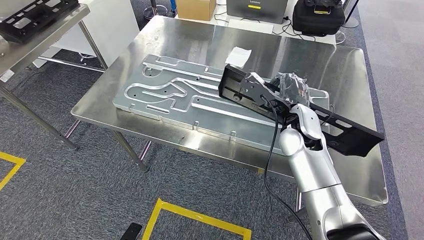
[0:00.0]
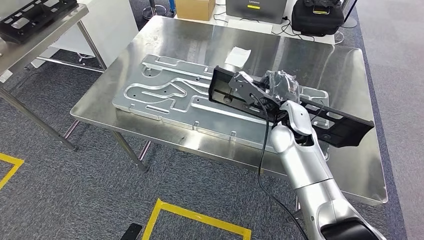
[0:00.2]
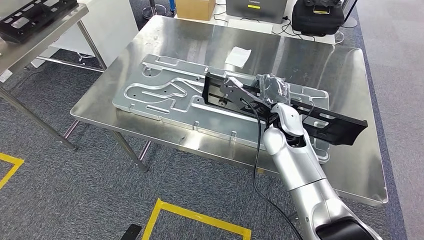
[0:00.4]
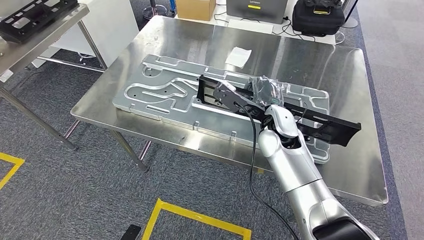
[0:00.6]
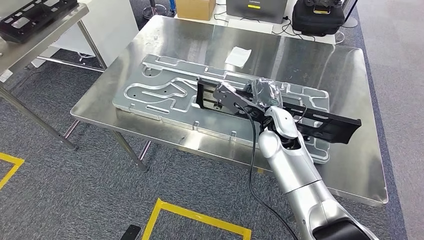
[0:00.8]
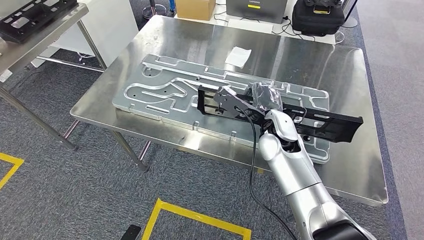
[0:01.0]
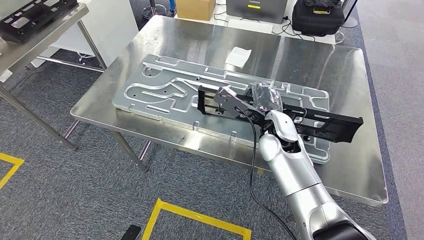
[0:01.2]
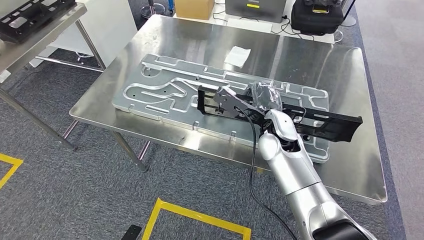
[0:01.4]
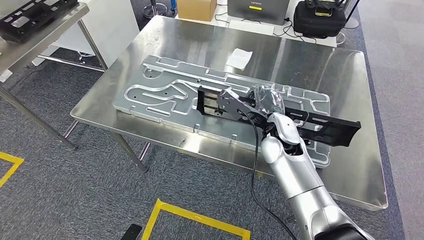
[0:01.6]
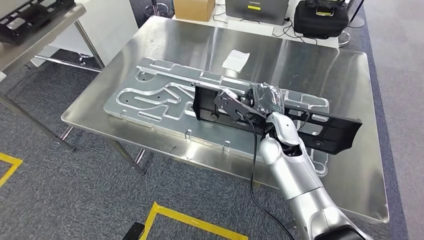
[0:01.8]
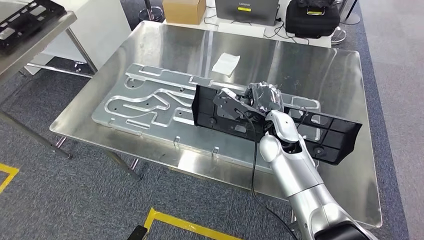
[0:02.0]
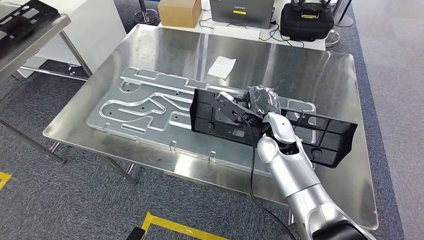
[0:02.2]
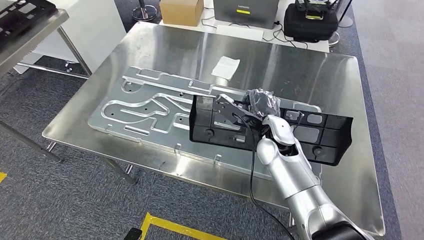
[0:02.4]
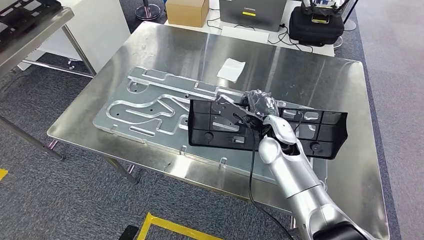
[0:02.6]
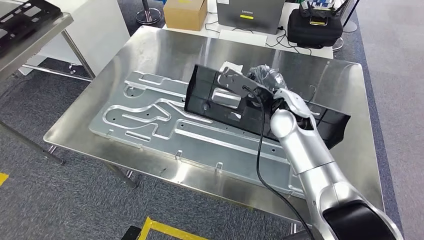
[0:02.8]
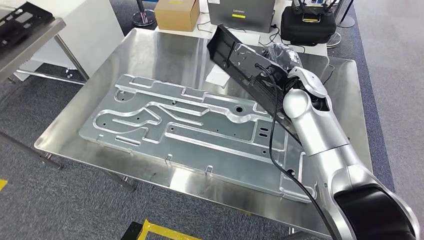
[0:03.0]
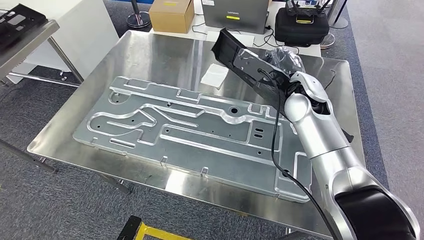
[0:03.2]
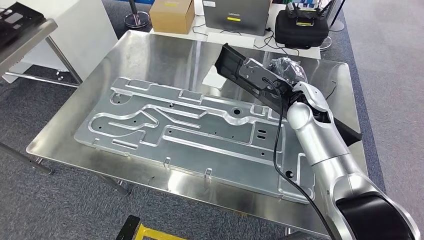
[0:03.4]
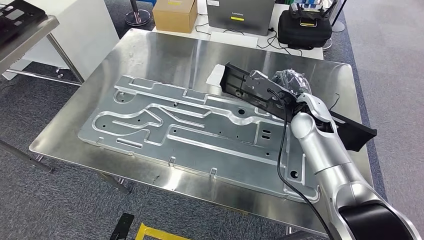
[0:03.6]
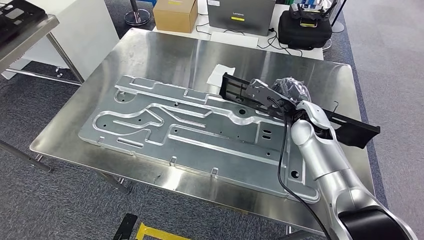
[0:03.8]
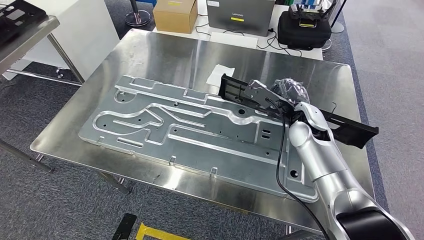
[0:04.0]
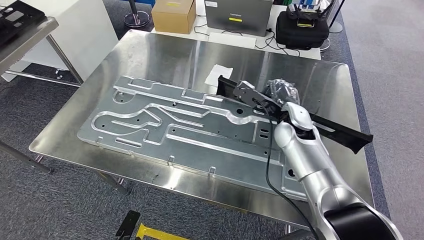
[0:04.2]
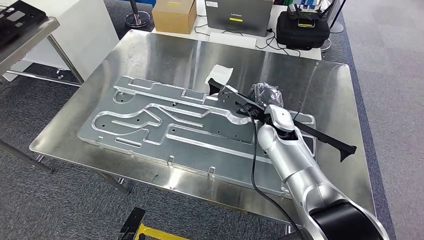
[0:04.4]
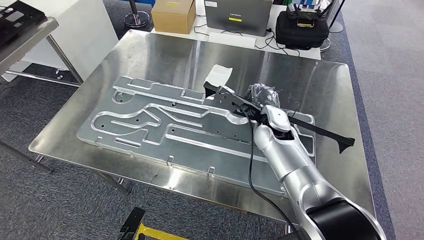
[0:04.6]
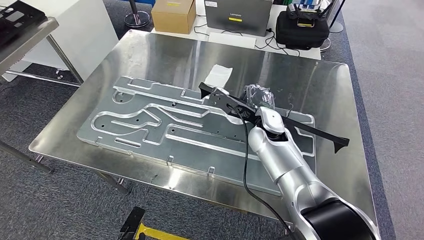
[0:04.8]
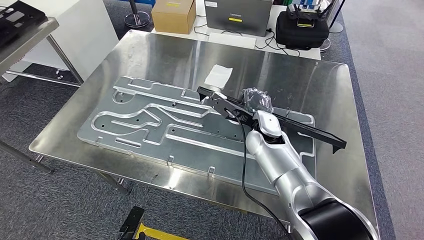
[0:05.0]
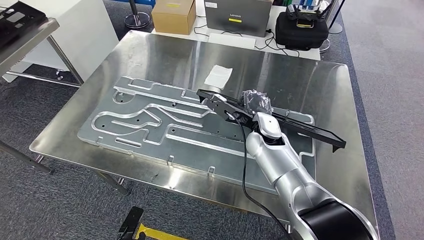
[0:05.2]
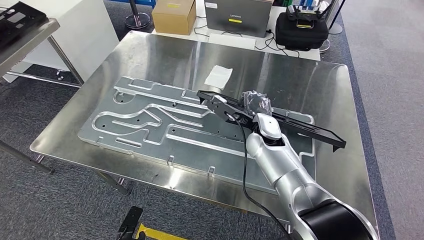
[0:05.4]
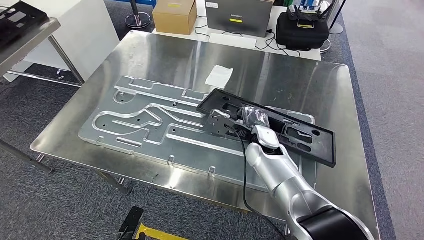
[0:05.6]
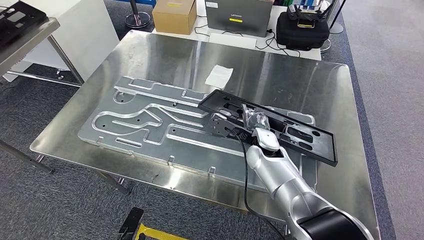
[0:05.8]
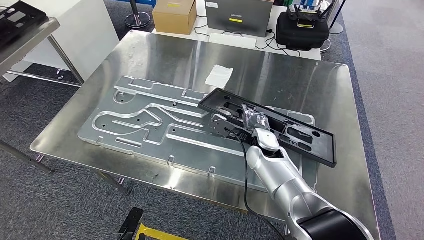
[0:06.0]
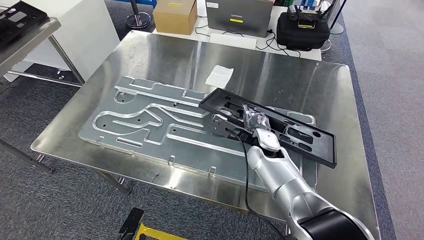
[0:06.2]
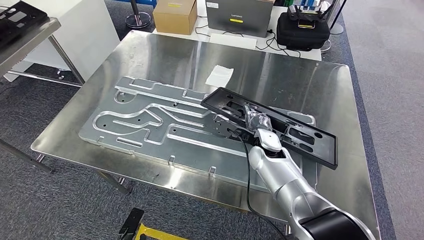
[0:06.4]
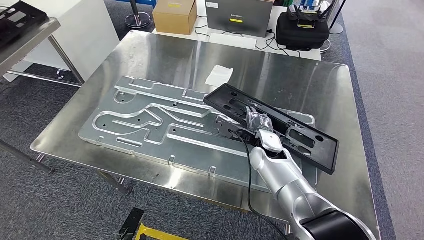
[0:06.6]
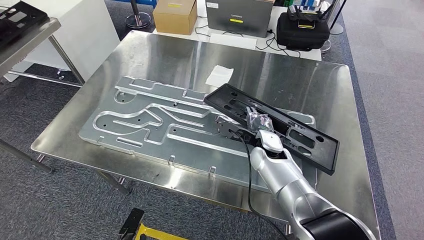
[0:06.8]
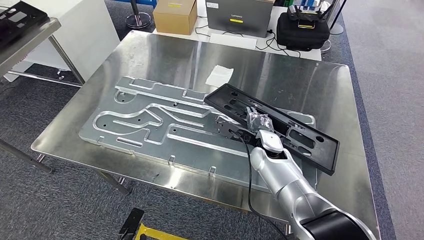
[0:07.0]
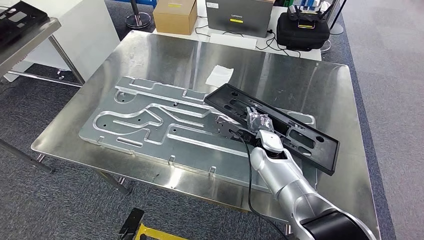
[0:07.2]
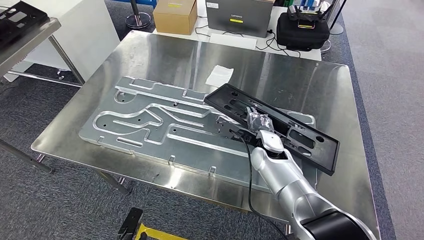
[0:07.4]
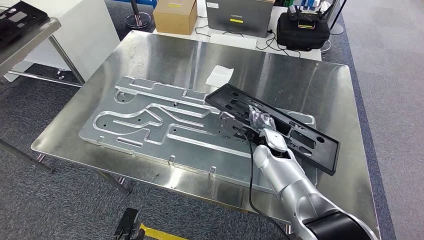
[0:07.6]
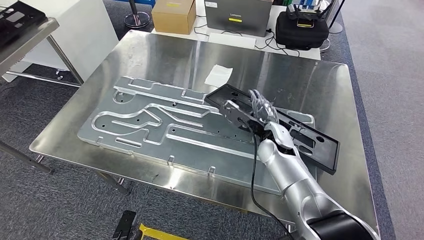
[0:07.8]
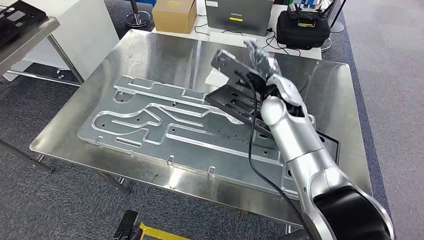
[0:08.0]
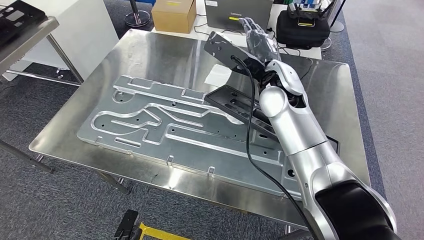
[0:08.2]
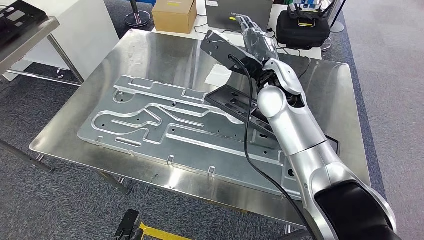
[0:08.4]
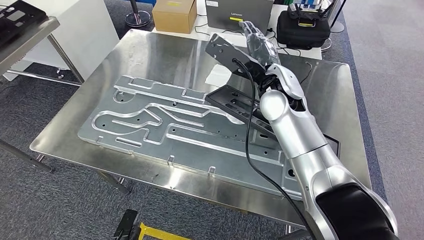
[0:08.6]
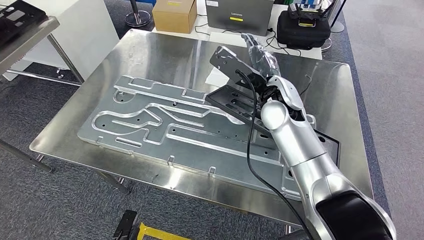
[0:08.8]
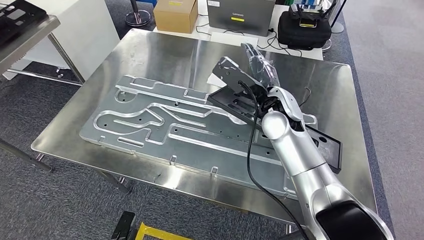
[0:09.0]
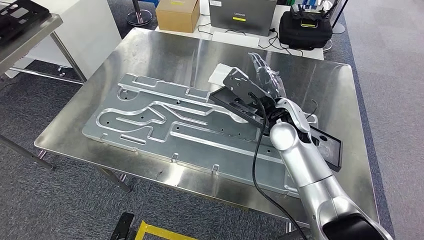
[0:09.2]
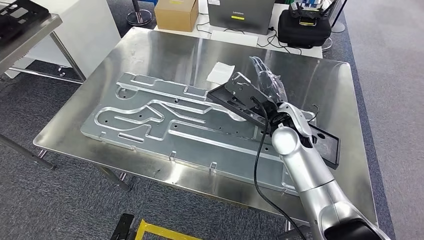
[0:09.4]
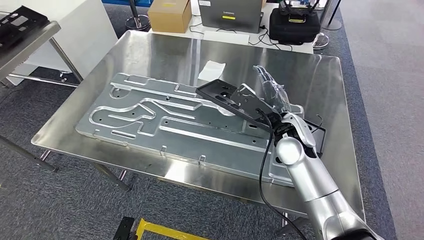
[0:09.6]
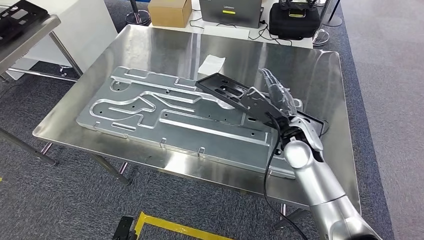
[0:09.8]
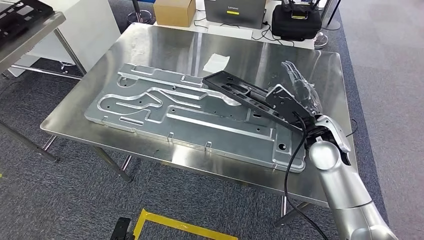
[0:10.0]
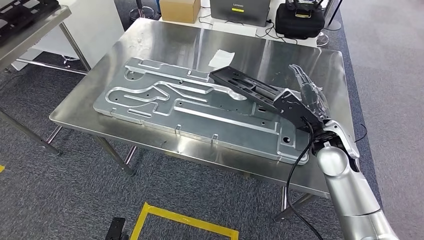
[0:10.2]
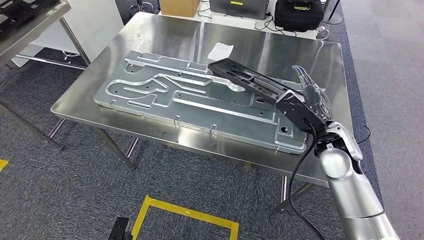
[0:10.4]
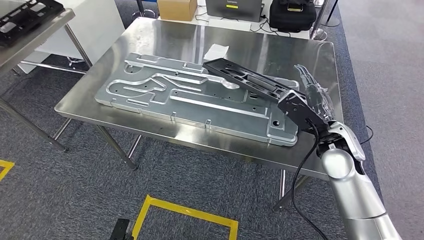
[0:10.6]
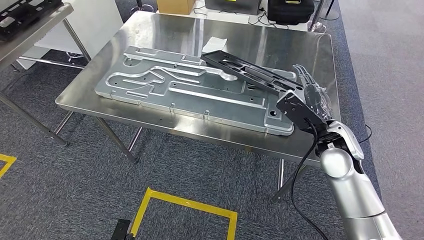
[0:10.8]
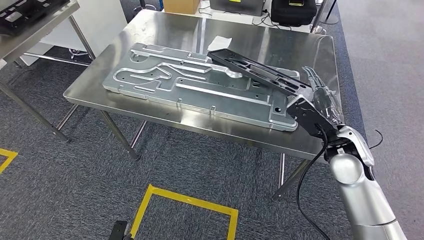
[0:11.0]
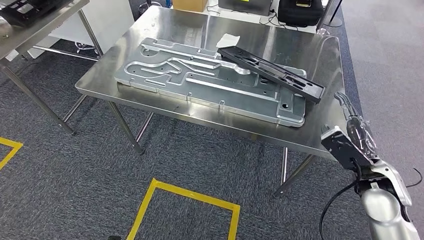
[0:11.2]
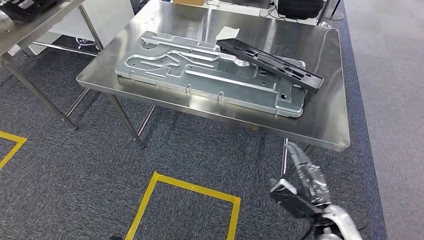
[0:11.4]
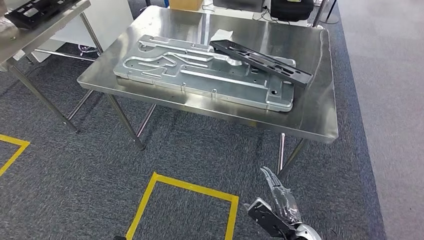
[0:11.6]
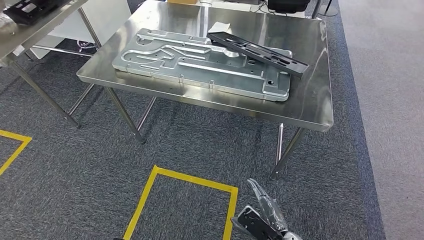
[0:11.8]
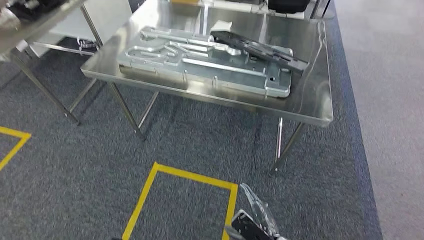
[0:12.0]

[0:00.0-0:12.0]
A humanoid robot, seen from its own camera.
Step, 0:00.0 to 0:11.0: Insert the large material into the corresponding slot on the workbench.
0:04.4 to 0:06.0: The right hand is displaced downward by about 5 cm.
0:06.0 to 0:07.6: The hands stay close to where they were, moving slightly.
0:07.6 to 0:09.0: The right hand travels upward by roughly 15 cm.

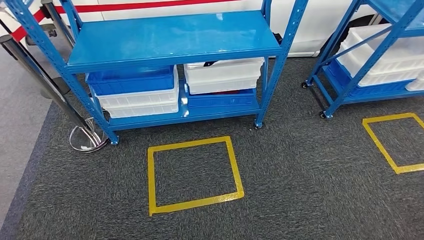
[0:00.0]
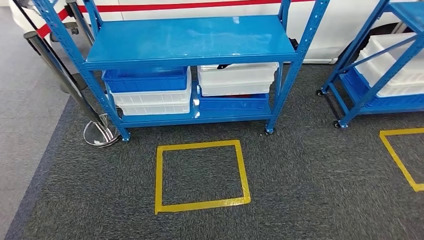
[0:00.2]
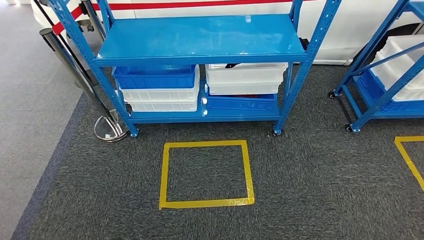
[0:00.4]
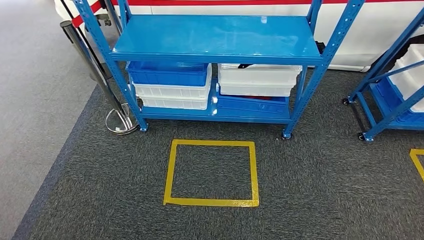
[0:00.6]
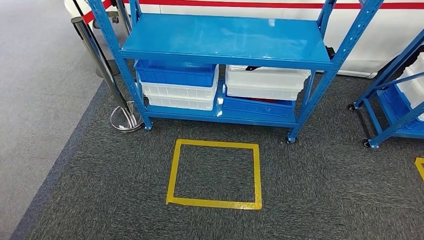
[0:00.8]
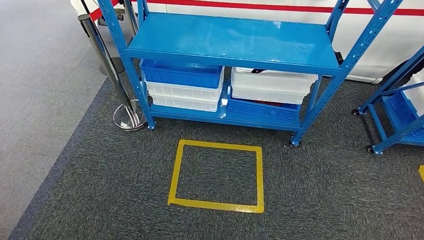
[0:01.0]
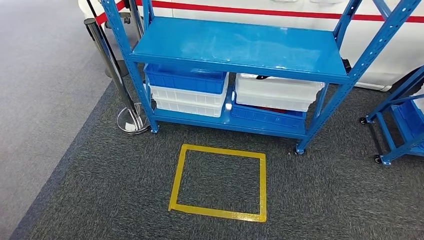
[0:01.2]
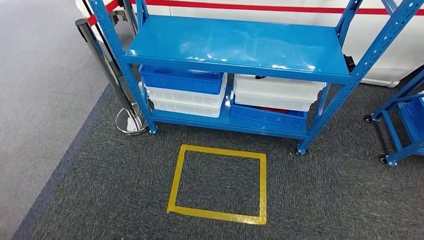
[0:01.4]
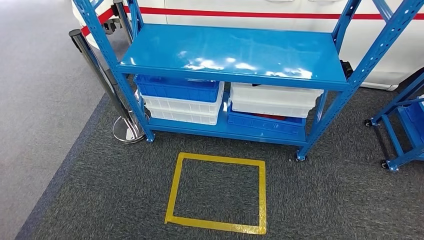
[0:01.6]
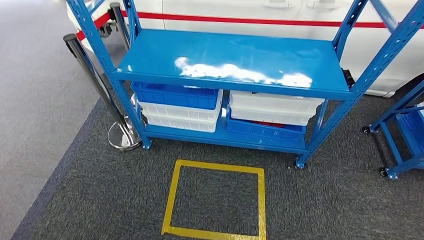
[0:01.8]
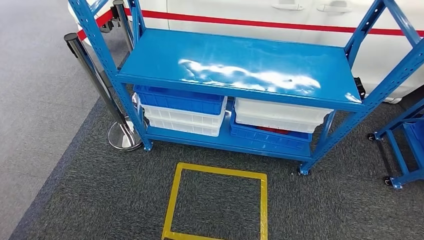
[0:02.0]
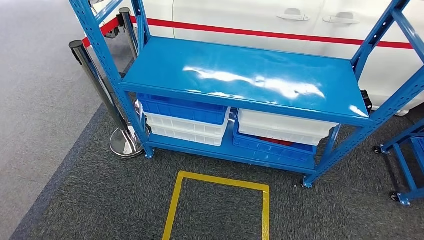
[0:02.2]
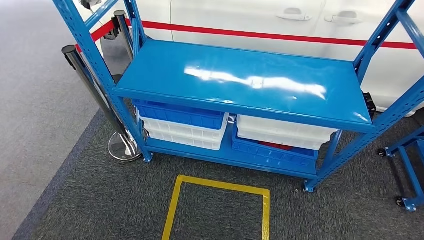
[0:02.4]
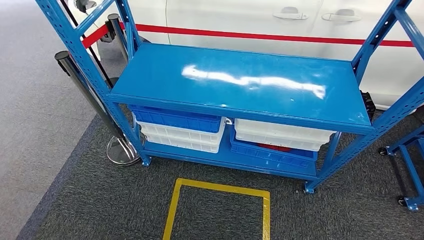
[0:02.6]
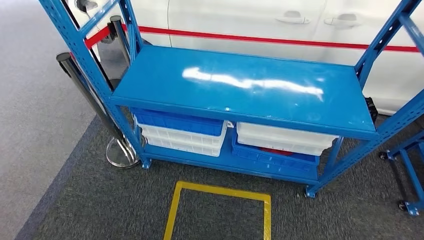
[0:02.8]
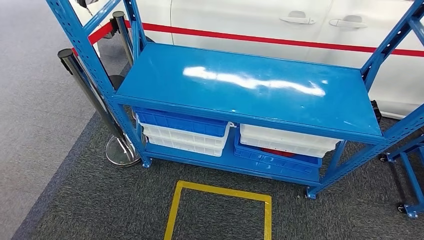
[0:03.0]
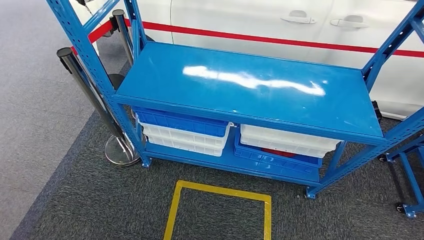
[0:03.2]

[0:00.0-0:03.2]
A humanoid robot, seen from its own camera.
Step, 0:00.0 to 0:03.2: Move to the initial position of the shelf.

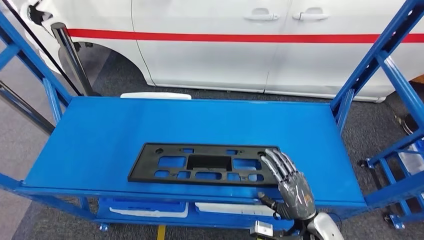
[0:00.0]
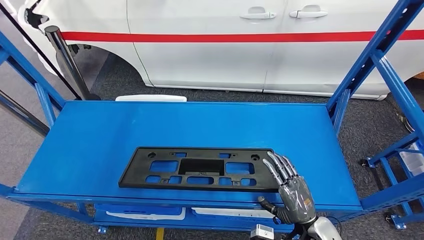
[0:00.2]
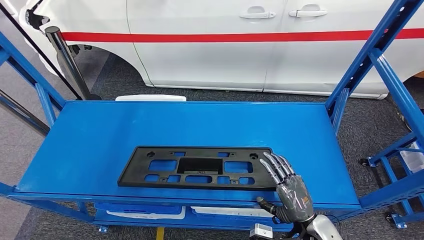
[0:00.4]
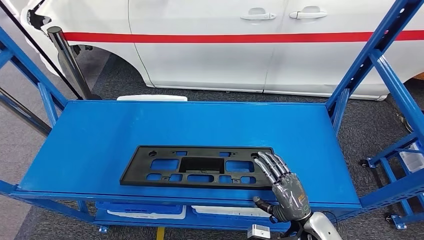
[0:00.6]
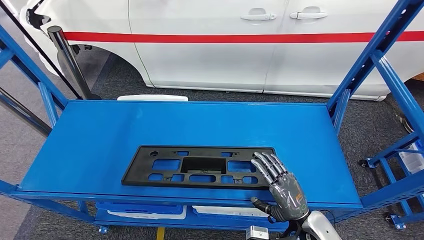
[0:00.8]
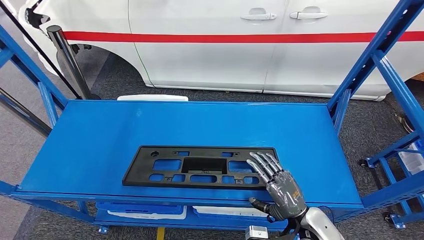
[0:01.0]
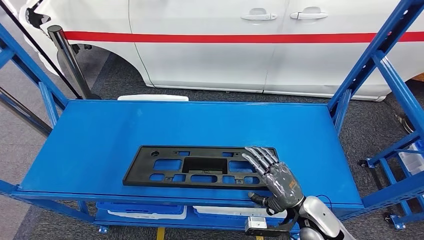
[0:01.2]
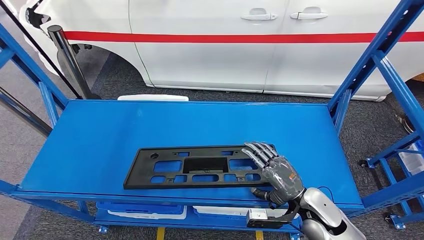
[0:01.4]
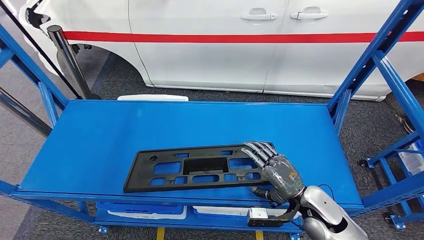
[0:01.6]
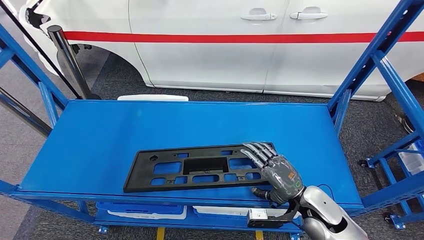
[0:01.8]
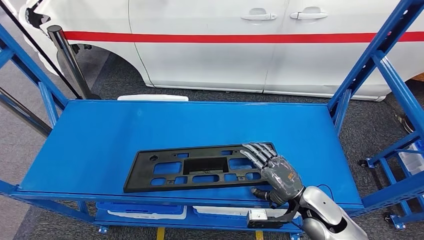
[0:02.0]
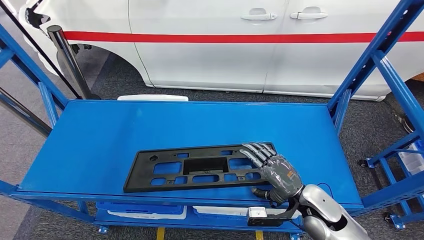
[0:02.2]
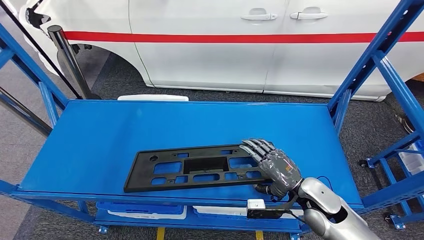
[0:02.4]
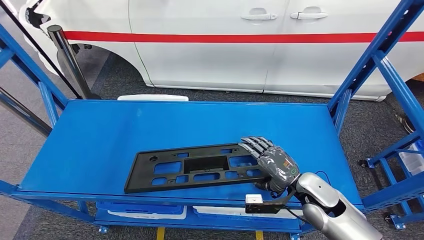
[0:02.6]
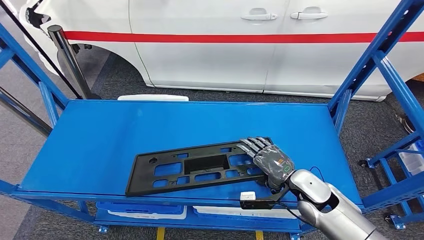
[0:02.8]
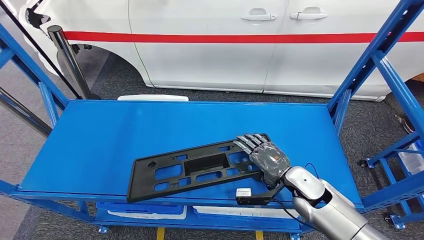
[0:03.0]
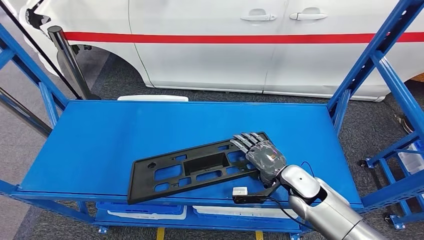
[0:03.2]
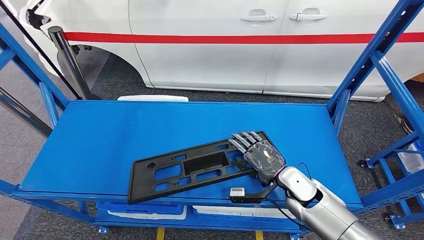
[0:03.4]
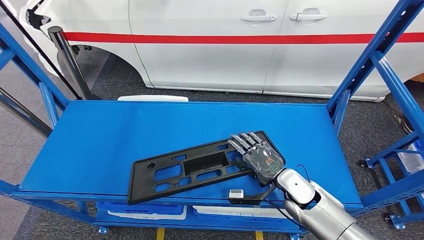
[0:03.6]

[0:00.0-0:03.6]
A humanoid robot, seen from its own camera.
0:01.8 to 0:03.6: The right hand moves forward, roughly 5 cm.
